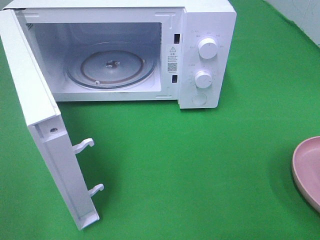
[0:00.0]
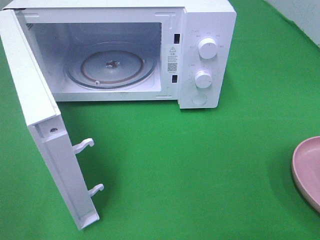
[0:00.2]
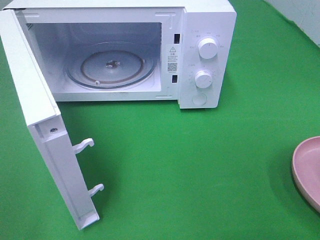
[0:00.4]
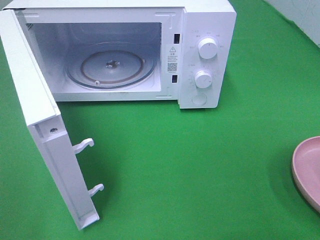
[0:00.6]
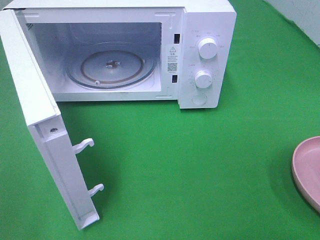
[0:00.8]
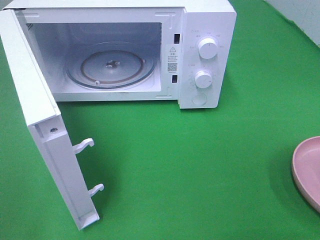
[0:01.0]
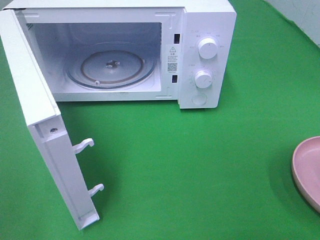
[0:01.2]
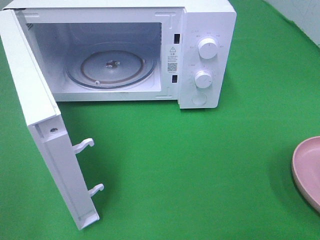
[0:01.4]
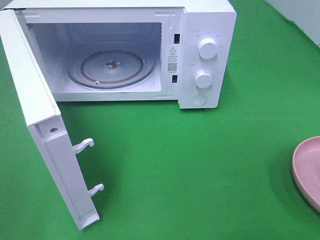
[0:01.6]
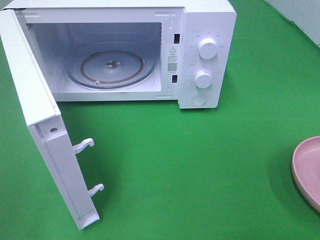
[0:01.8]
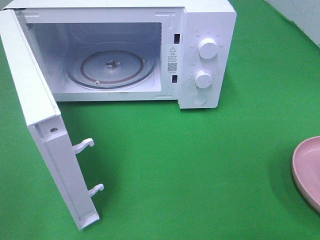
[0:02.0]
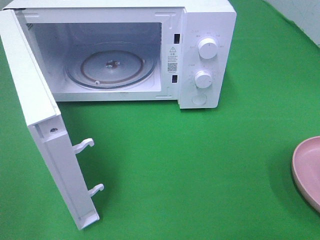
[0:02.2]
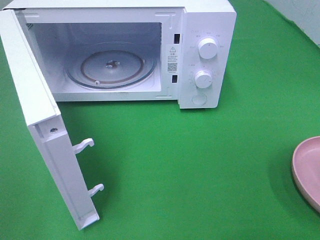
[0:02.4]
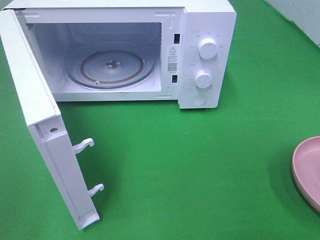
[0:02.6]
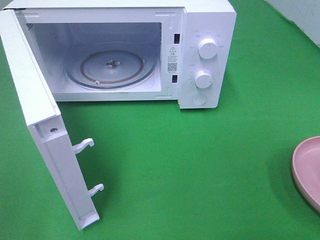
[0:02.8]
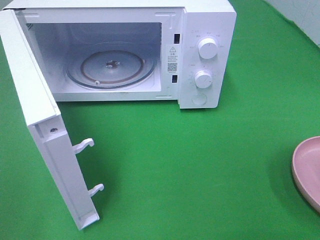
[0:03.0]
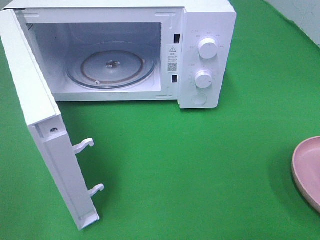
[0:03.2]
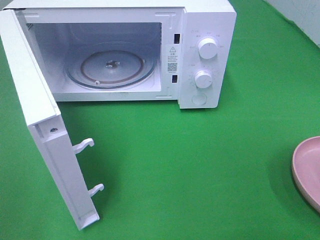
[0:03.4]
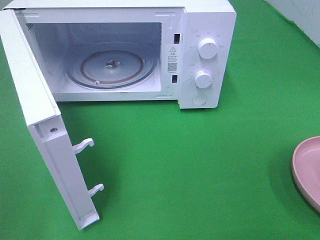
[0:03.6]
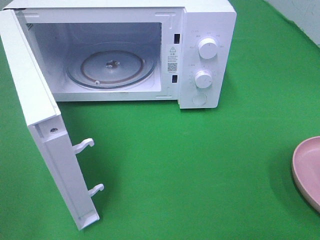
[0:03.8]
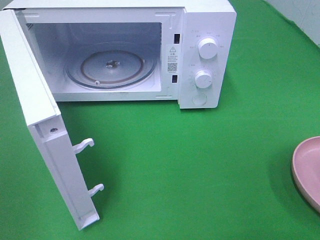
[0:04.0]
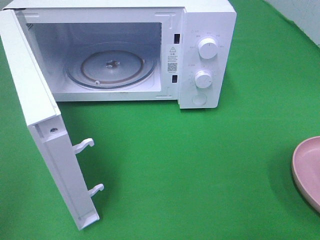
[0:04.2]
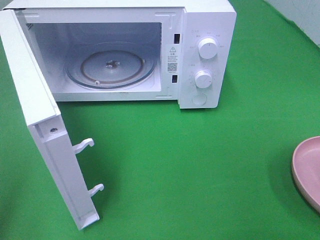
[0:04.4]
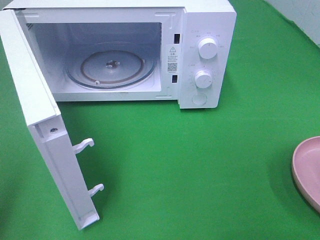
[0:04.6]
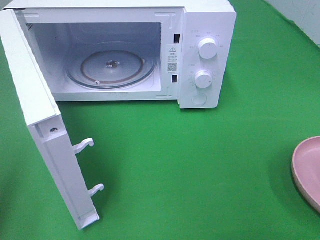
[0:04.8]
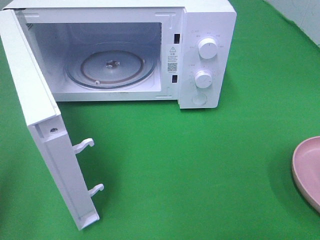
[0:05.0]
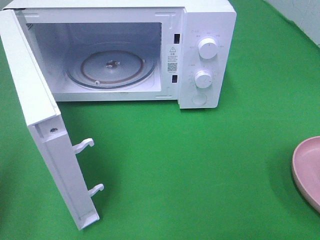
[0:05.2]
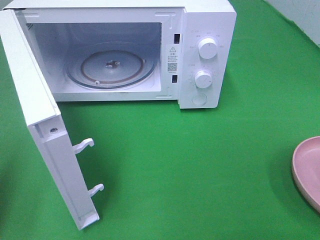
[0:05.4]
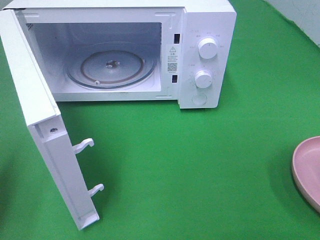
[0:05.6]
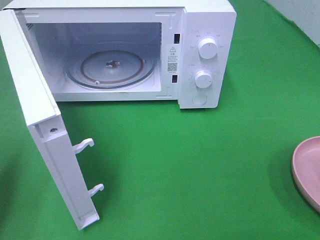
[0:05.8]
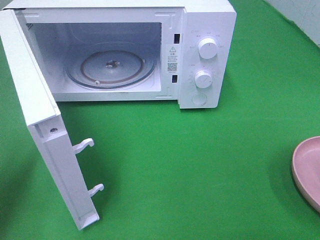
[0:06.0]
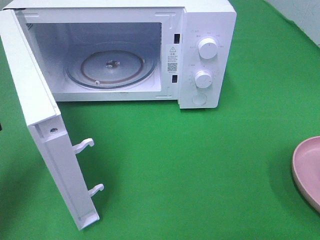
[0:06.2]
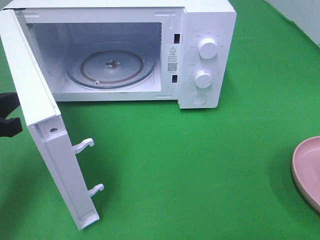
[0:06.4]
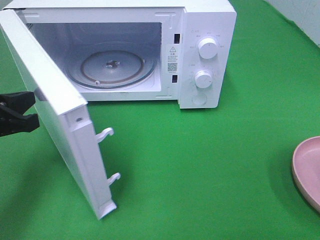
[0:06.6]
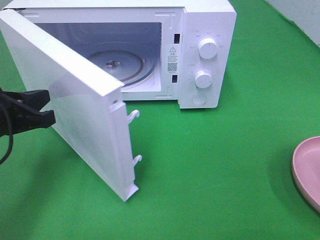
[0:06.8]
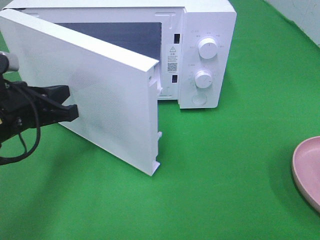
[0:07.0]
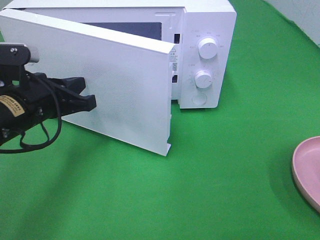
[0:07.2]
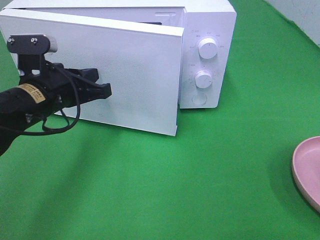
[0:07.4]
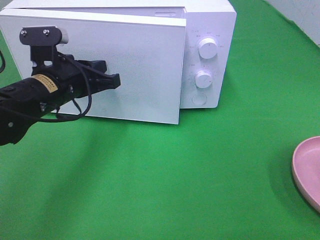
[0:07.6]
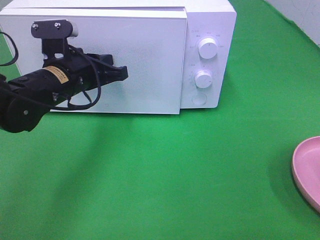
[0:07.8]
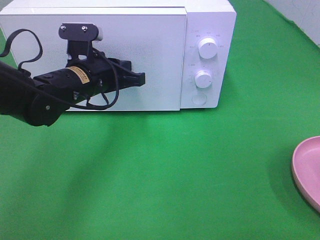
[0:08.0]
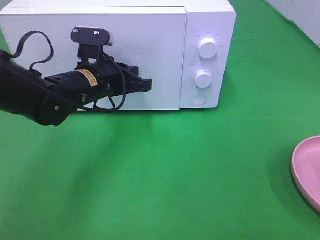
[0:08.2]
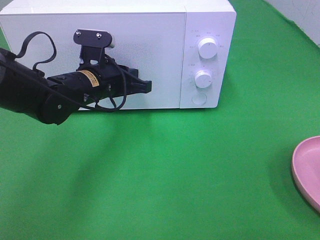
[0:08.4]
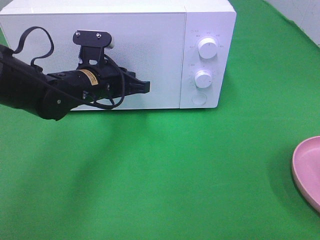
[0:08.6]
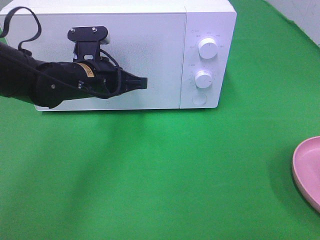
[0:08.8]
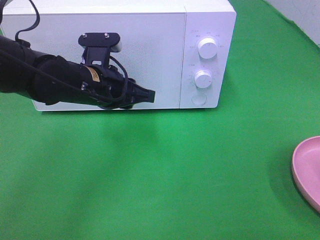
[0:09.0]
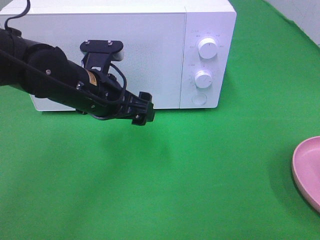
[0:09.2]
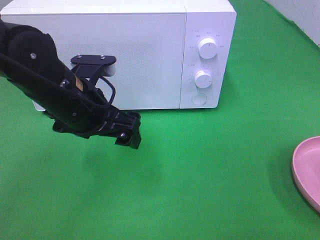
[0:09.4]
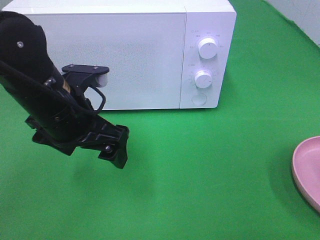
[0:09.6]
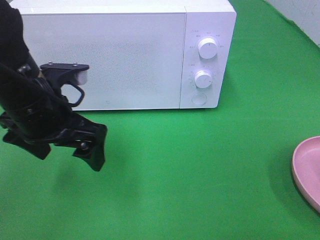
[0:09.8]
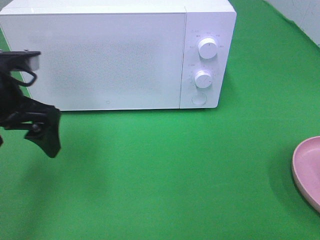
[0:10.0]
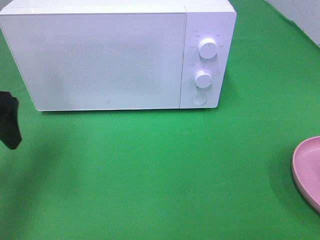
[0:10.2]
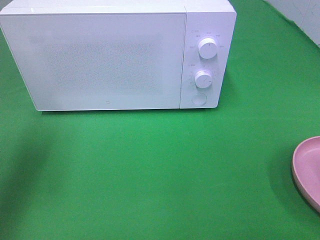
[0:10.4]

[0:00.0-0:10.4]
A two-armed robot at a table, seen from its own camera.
Task of the whole recording: Heat the burger.
Step, 0:00.0 to 0:08.8: Left hand: close the microwave door.
0:01.4 to 0:03.0: Both grippers stay put.
0:04.4 to 0:06.0: The left gripper goes approximately 15 cm forward and downward.
0:06.0 to 0:07.4: The left gripper travels to the right and forward by roughly 15 cm.
0:07.4 to 0:09.0: The left gripper shifts approximately 5 cm to the right, and opens.
0:09.0 to 0:10.4: The left gripper shifts roughly 20 cm to the left and upward, and opens its fingers.

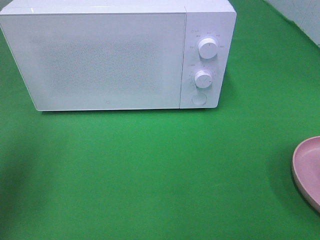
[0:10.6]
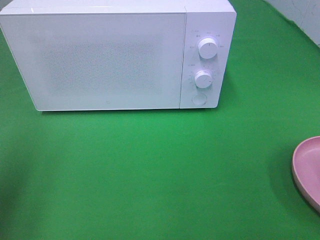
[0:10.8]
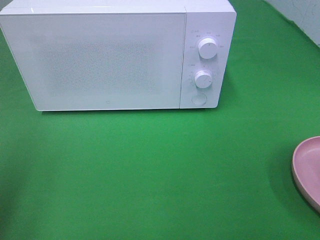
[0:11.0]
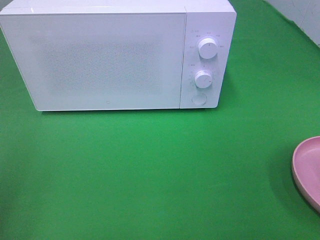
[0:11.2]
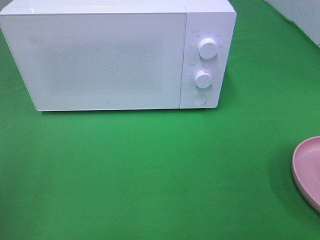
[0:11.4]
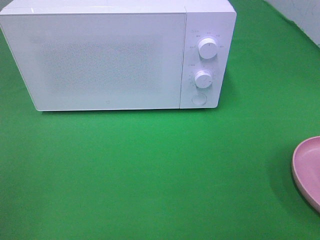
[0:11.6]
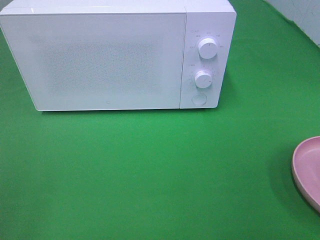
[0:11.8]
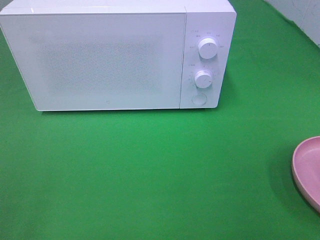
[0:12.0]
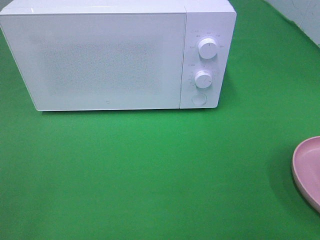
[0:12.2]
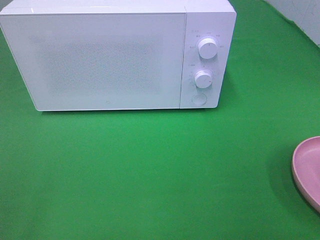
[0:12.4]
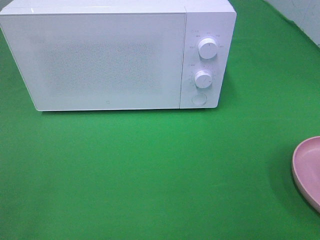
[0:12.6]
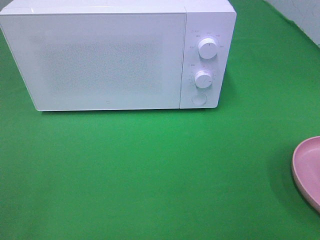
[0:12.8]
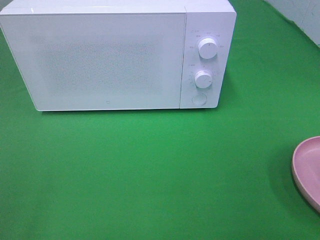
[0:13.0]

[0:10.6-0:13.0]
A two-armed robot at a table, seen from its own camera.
Task of the whole recording: Heat the burger.
0:10.6 to 0:11.8: The left gripper heads backward, covering some 20 cm.
0:11.8 to 0:13.0: Both grippers stay put.
